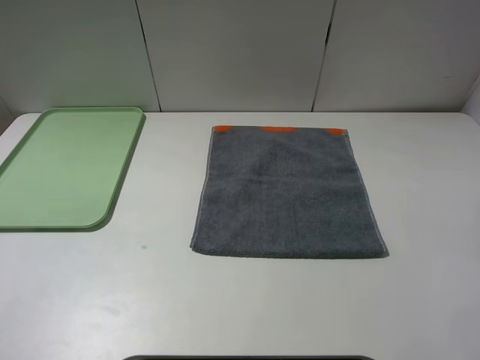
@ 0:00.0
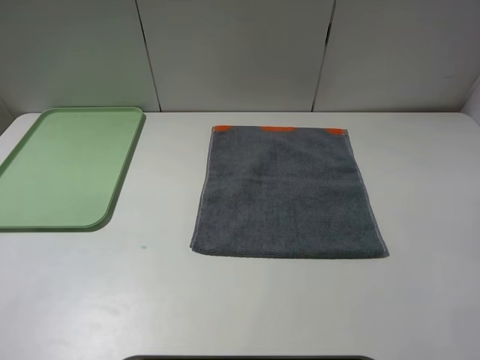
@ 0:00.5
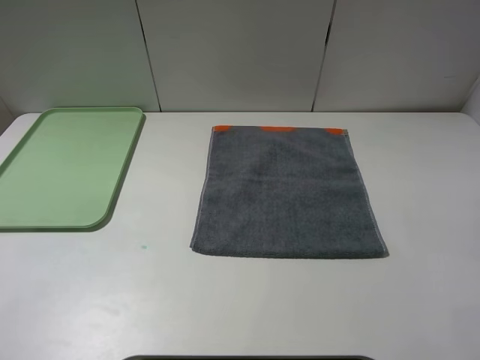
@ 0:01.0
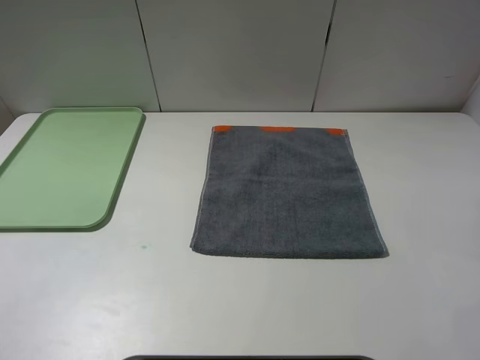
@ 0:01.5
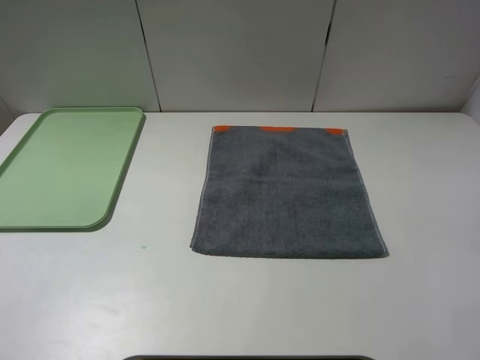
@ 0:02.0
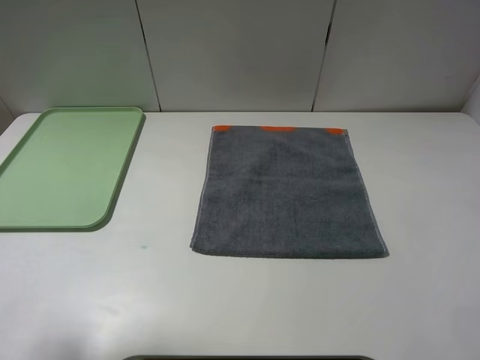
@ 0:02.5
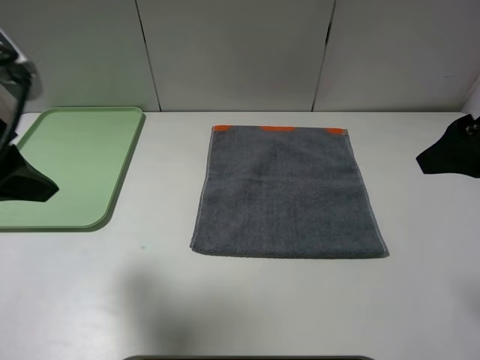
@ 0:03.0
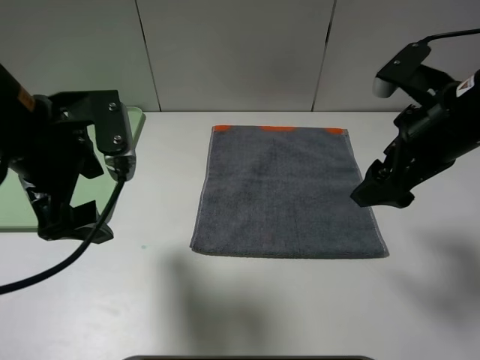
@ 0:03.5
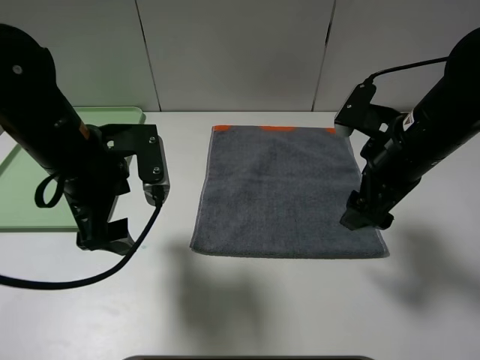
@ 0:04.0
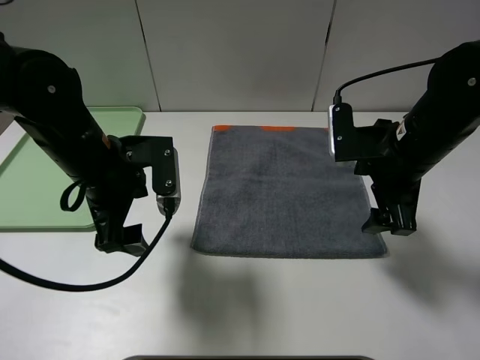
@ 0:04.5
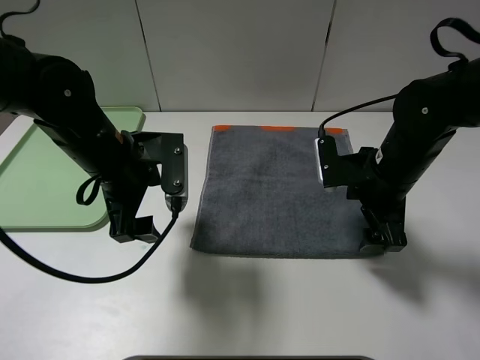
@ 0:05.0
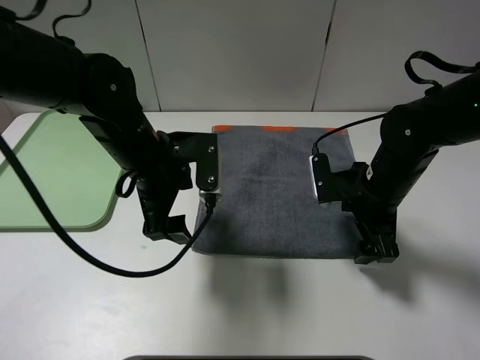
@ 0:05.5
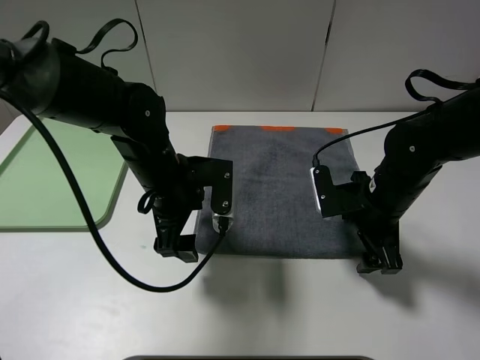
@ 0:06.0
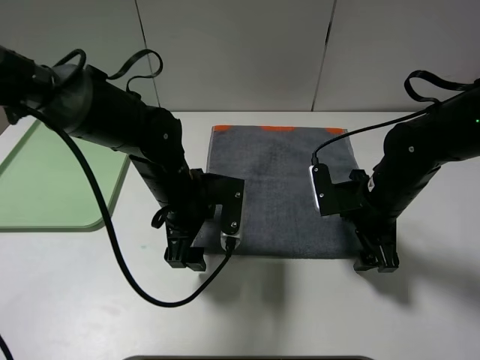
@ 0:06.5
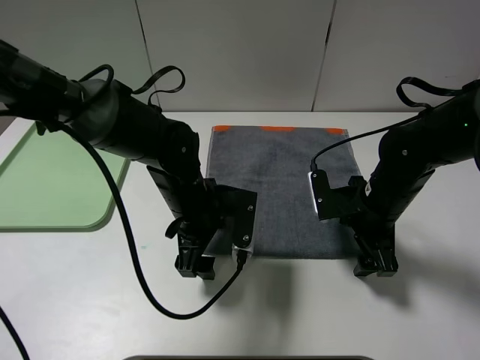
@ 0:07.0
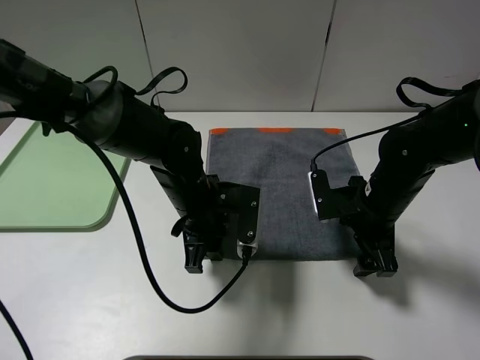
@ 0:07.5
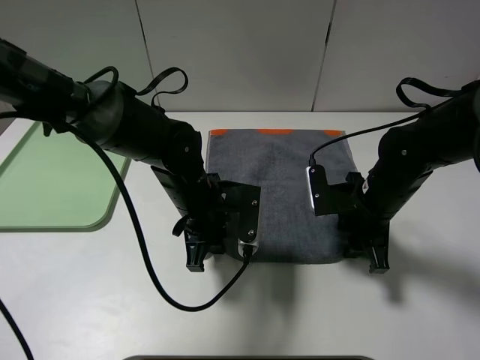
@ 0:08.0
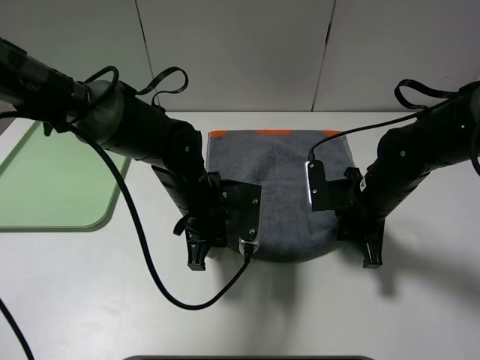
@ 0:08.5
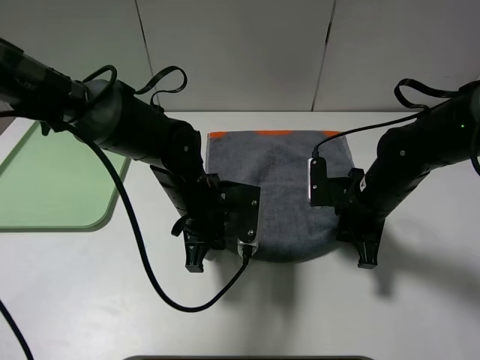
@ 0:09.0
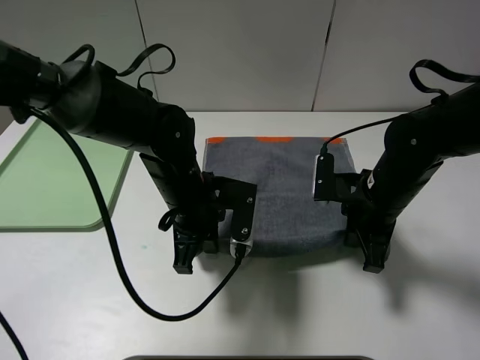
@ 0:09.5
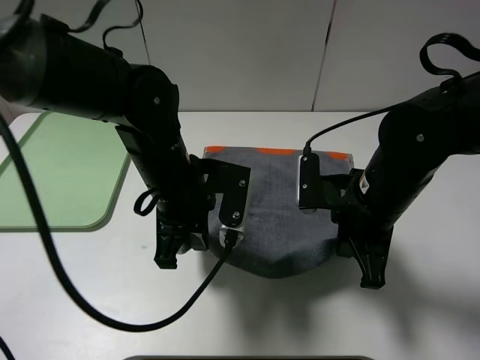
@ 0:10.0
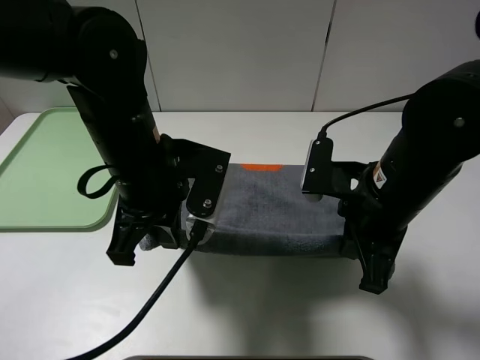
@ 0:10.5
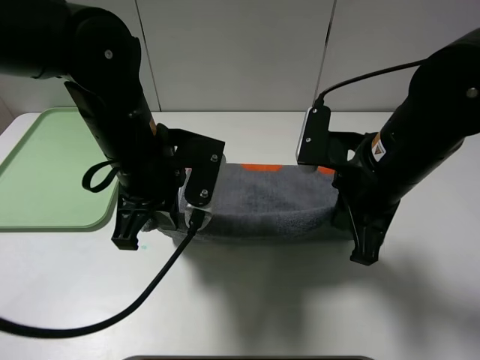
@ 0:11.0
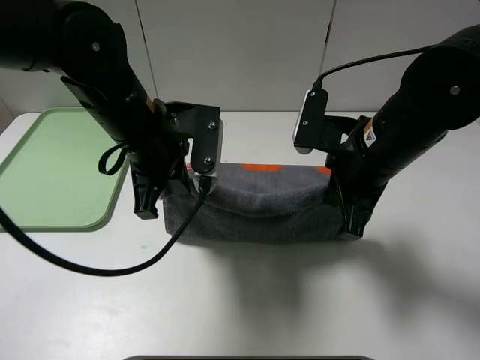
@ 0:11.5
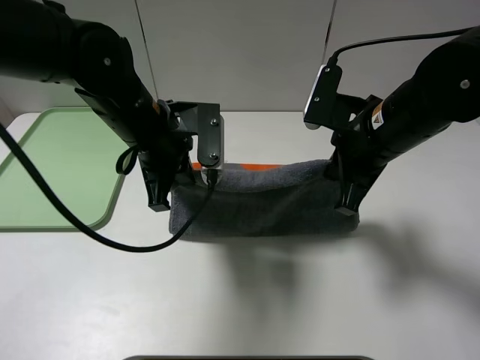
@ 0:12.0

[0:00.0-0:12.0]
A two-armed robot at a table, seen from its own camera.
0:02.0 to 0:04.0: The right gripper travels forward by about 25 cm. The left gripper travels forward, to the right and downward by some 30 cm.
0:04.0 to 0:06.0: The left gripper moves to the right and downward, approximately 10 cm. The right gripper is displaced downward by approximately 10 cm.
0:06.0 to 0:08.0: The left gripper shifts by some 5 cm, and closes up. Meanwhile the right gripper closes up.
0:08.0 to 0:10.0: Both grippers move upward, about 5 cm. The right gripper closes up.
0:10.0 to 0:12.0: The right gripper travels upward by approximately 5 cm, while the left gripper ends up approximately 5 cm from where it was.

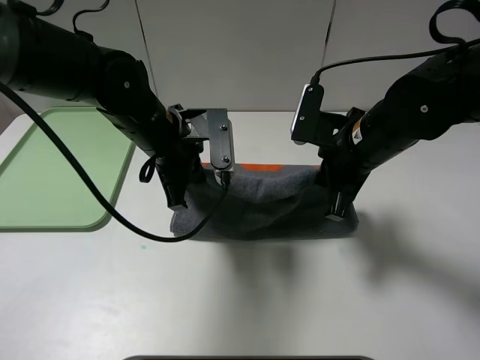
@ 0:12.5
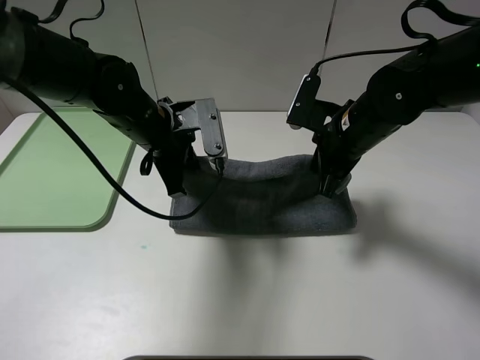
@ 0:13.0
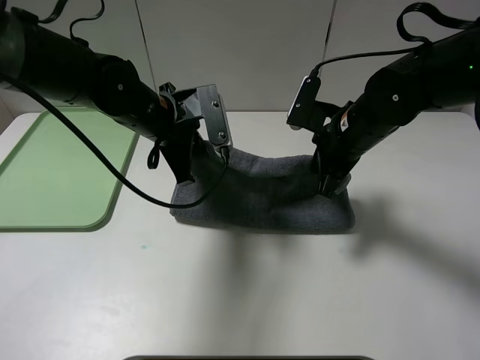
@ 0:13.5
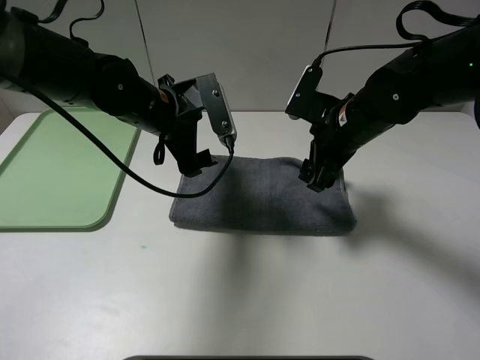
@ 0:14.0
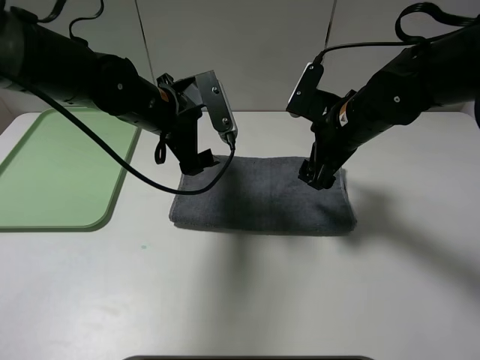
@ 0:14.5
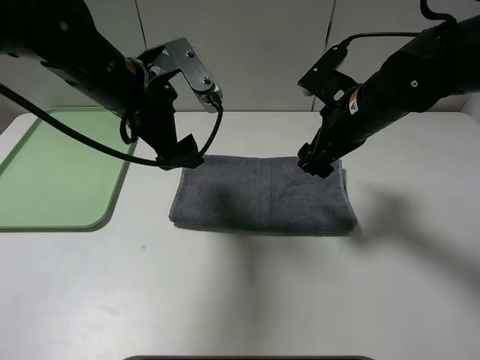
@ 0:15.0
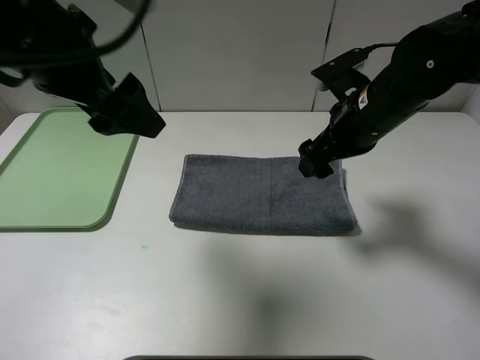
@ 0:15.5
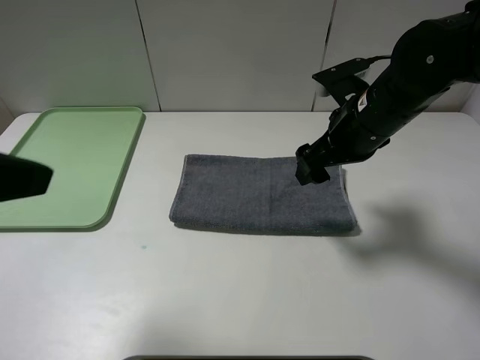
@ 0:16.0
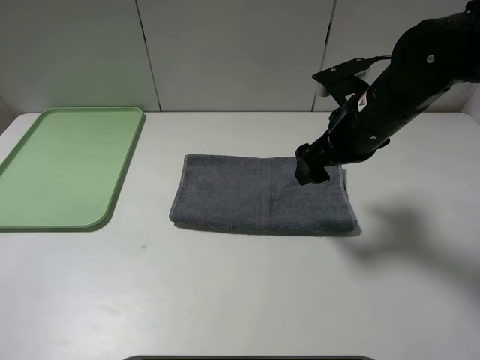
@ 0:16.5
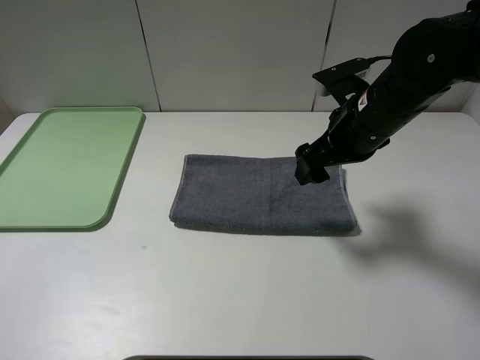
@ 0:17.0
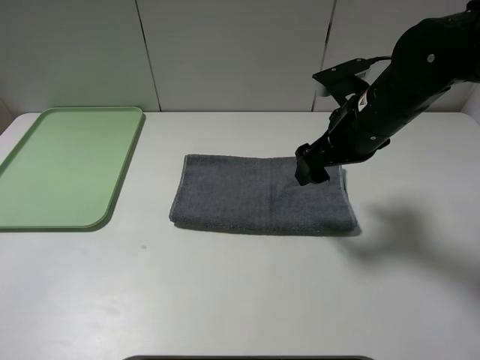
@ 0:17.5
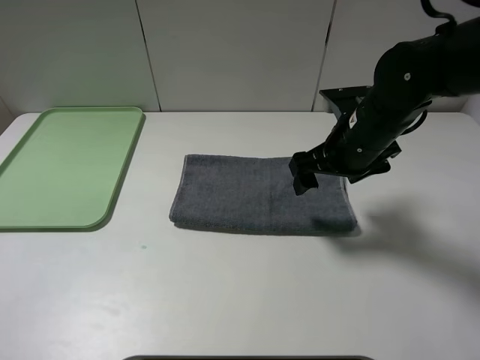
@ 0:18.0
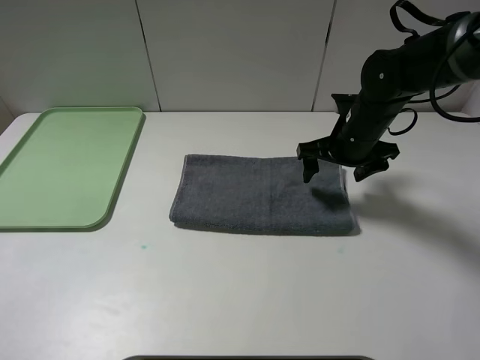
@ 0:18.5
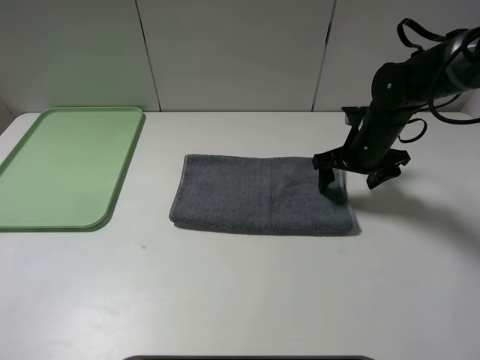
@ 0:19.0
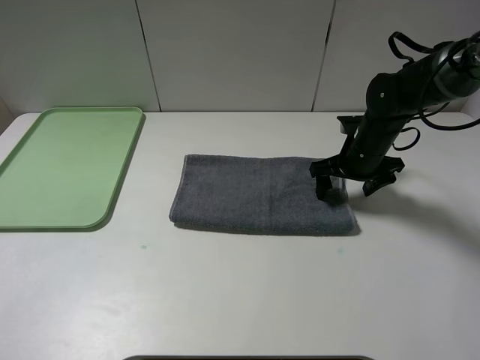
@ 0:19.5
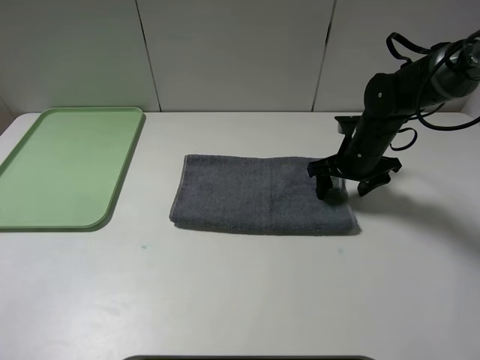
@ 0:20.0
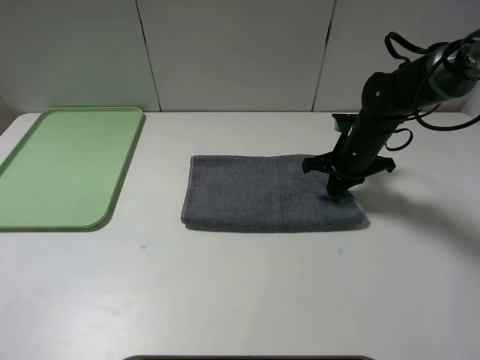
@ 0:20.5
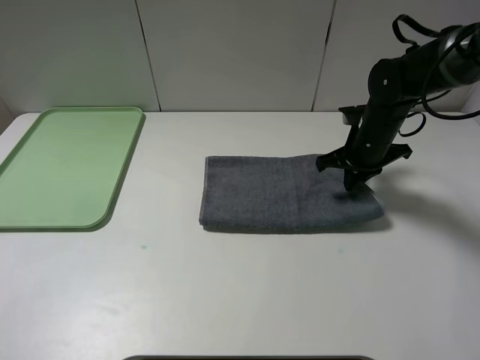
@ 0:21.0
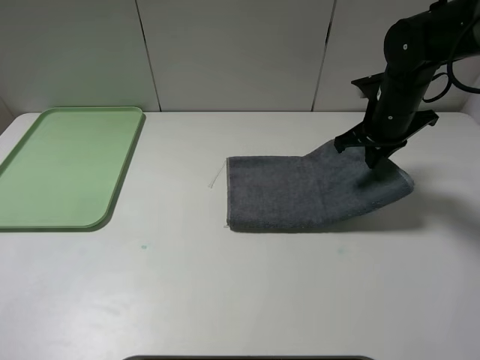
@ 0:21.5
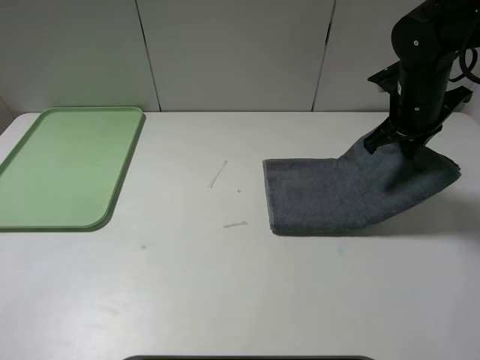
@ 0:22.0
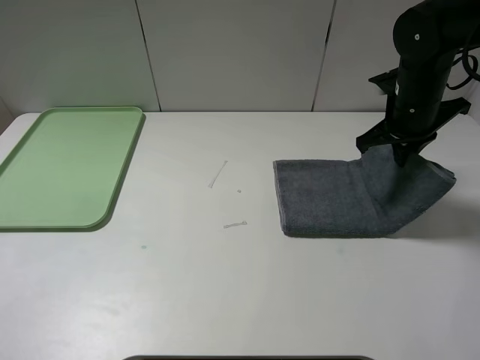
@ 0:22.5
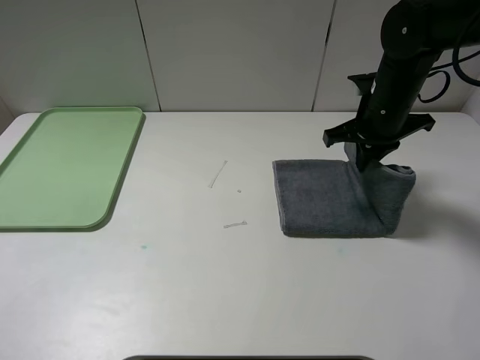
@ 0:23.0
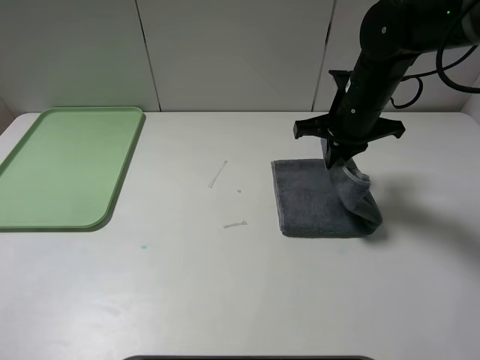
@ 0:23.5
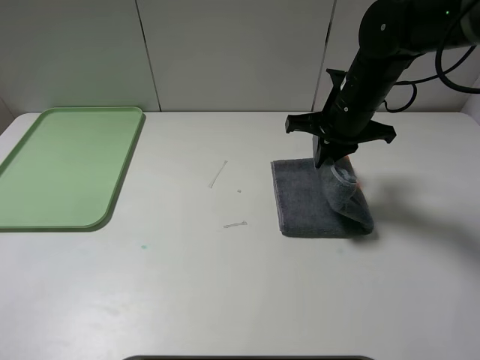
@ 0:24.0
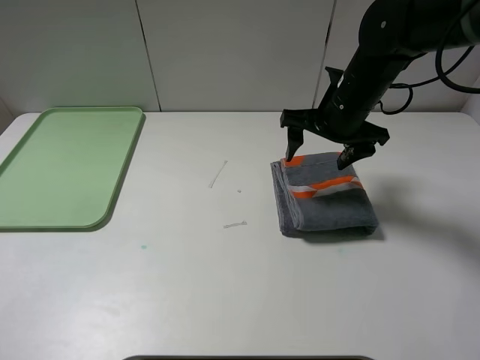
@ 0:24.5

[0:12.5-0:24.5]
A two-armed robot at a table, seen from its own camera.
Step, 0:12.5 to 0:14.5: Fold the grey towel upwards.
0:12.5 to 0:14.5: The left gripper opens up; the right gripper opens its fingers.
0:14.5 to 0:16.5: The left gripper shifts roughly 40 cm backward and to the left.
0:16.5 to 0:18.5: The right gripper travels forward and downward by approximately 10 cm.
0:18.5 to 0:20.5: The right gripper changes place by roughly 5 cm, and closes its fingers.
0:20.5 to 0:22.5: The right gripper is displaced upward by approximately 10 cm.
0:22.5 to 0:24.5: The right gripper is displaced to the left by some 10 cm, and opens.

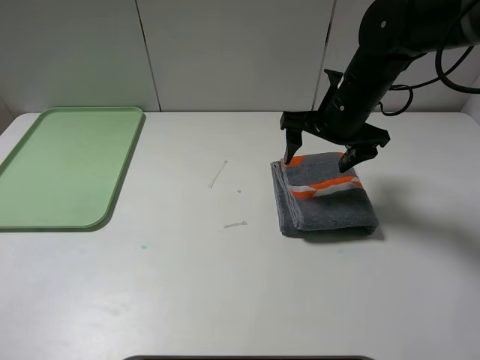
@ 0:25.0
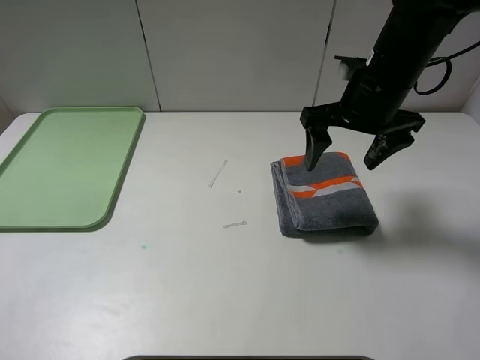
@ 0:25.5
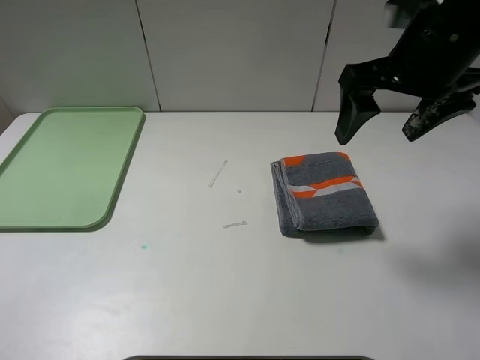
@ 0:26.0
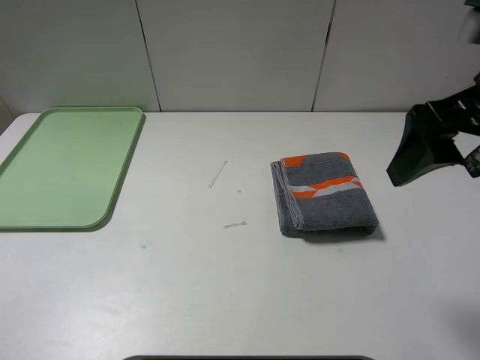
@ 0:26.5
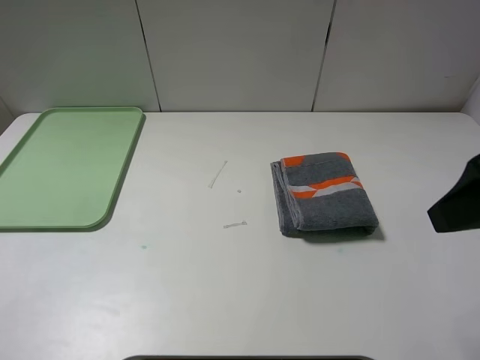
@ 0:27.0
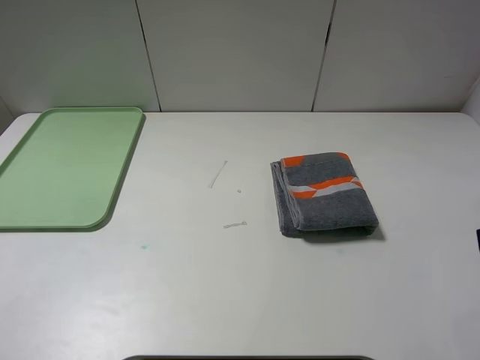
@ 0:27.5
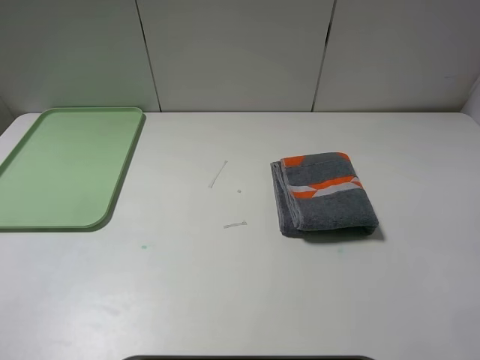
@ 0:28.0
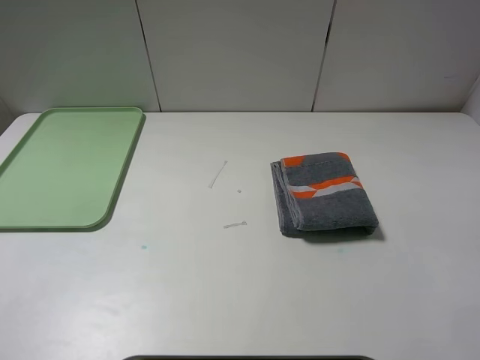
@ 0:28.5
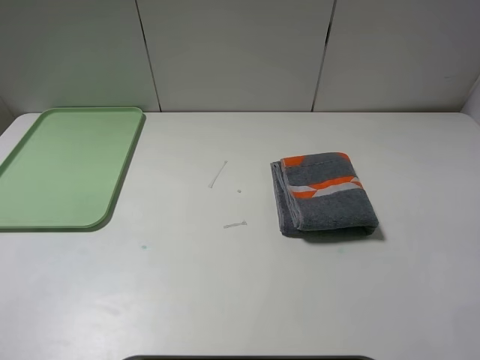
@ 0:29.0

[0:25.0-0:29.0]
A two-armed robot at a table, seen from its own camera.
0:25.0 to 0:27.0: The right gripper shifts some 25 cm backward and upward.
0:27.0 to 0:29.0: The right gripper heads backward and to the right, covering roughly 15 cm.
